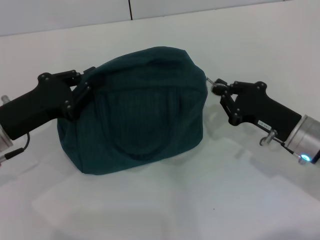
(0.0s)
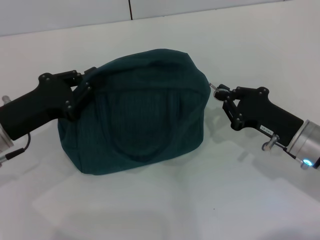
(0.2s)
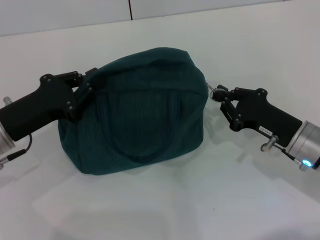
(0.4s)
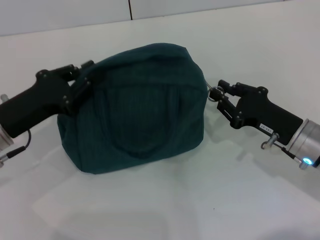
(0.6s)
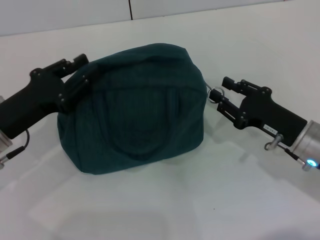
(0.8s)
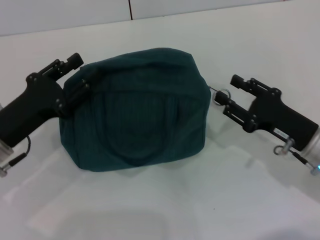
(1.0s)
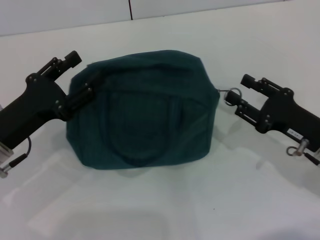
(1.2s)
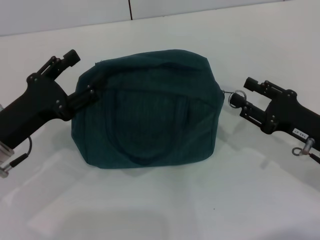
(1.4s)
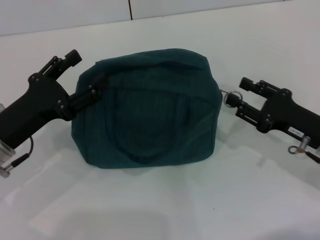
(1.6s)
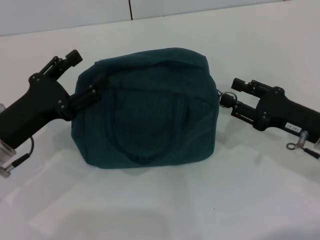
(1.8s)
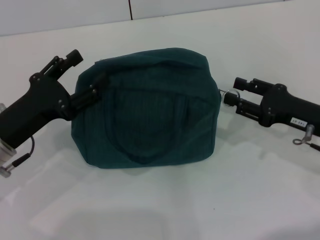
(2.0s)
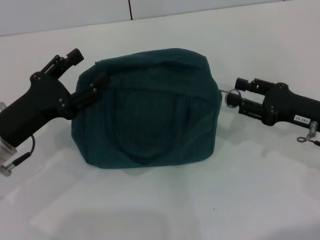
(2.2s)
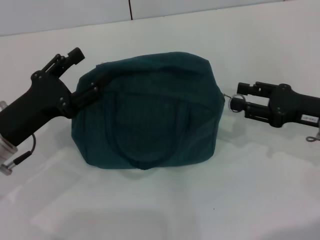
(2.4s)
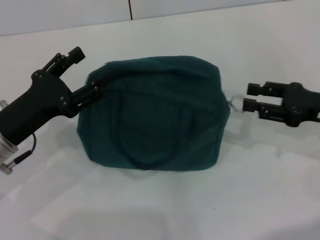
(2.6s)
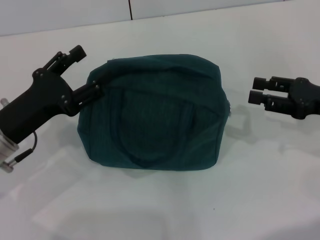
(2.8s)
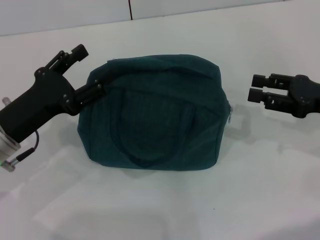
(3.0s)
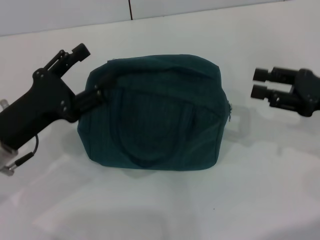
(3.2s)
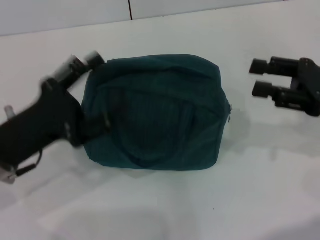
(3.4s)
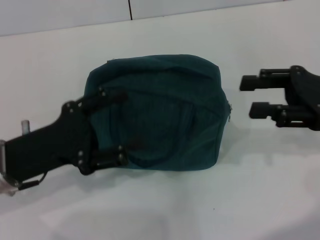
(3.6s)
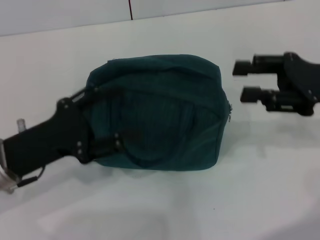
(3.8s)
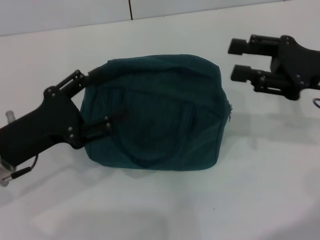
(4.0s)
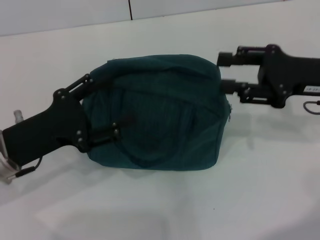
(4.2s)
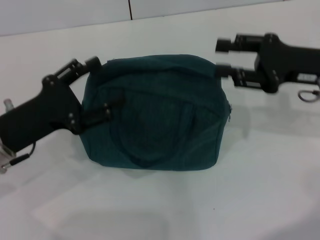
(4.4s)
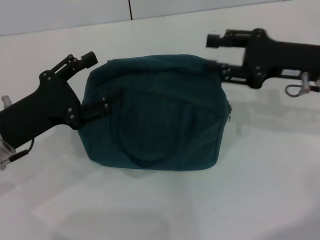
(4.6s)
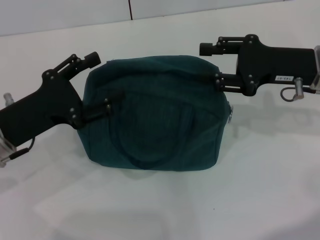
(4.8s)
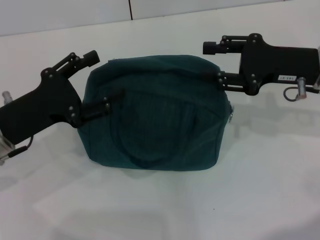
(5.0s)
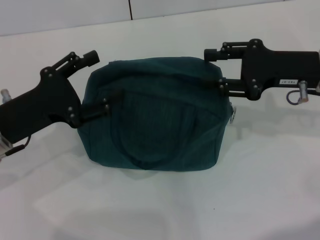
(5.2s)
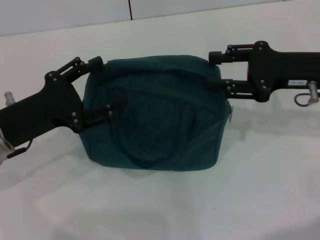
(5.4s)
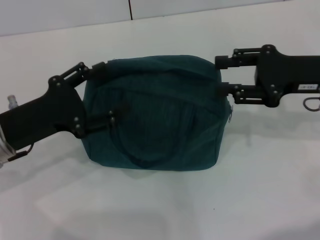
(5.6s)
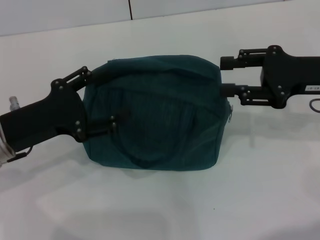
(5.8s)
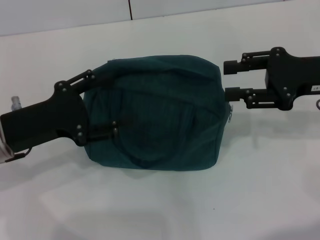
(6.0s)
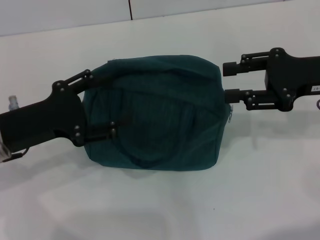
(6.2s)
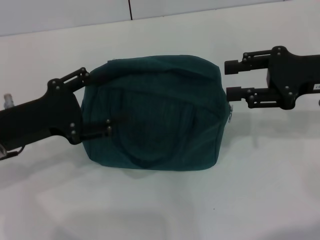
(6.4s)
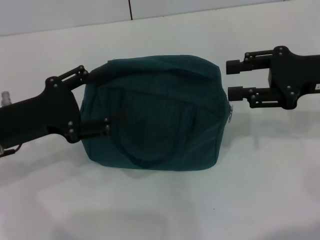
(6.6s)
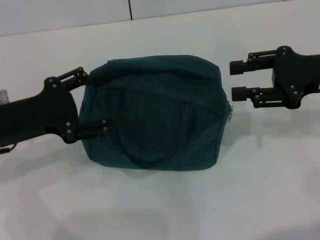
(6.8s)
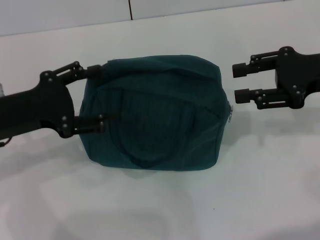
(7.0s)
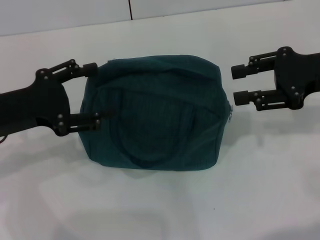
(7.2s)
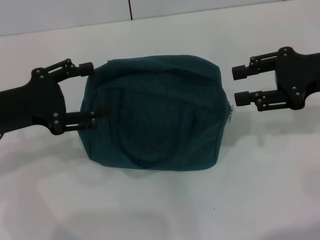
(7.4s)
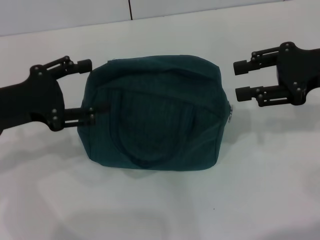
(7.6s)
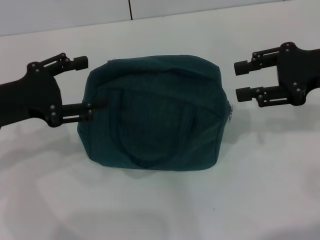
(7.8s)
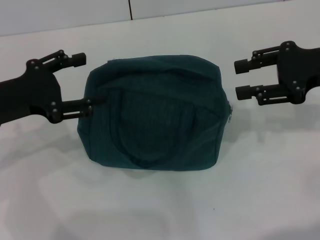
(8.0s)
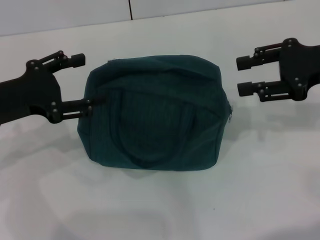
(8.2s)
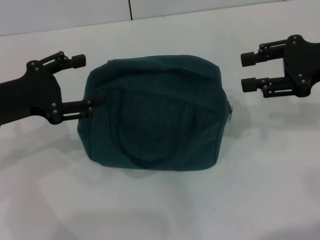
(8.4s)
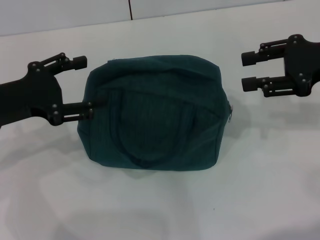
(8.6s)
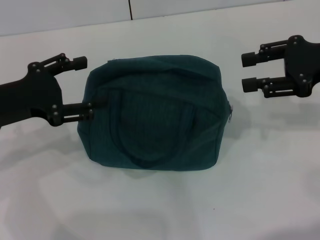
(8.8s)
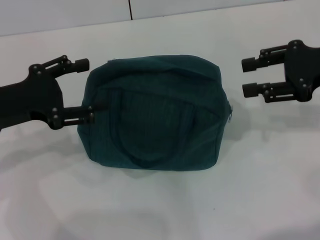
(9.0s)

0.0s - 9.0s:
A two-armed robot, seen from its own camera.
0.0s - 1.6s: The left gripper opens up. The right gripper opens.
1.6s - 3.0s: The right gripper goes some 10 cm upward and to the right.
3.0s - 4.4s: The right gripper changes place by some 10 cm.
4.4s - 7.6s: The grippers stay close to where they were, moving slightly.
7.6s - 9.0s: The two grippers keep their place.

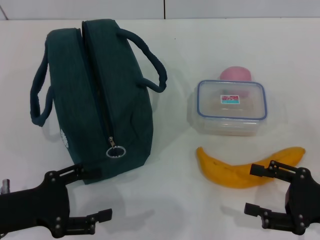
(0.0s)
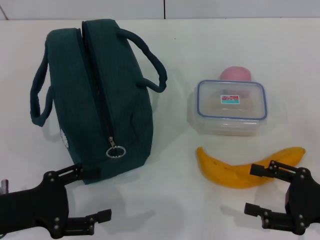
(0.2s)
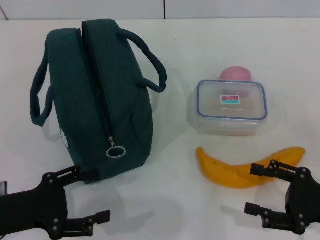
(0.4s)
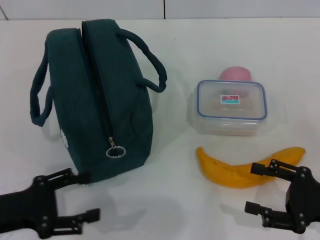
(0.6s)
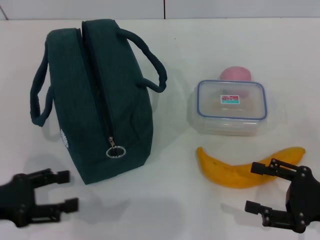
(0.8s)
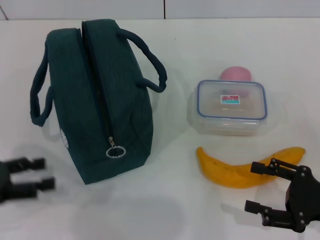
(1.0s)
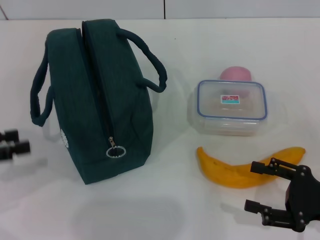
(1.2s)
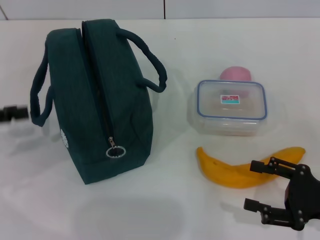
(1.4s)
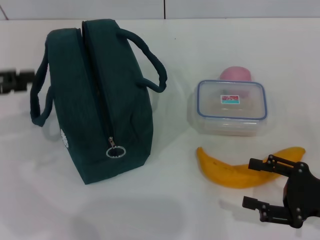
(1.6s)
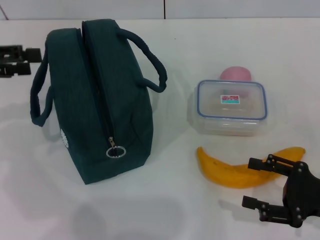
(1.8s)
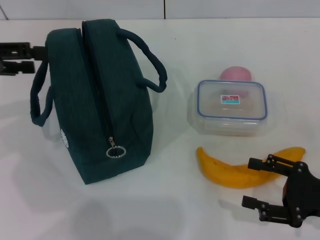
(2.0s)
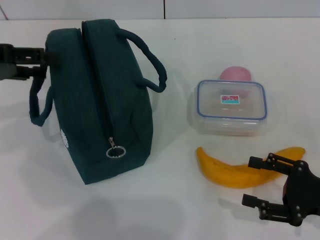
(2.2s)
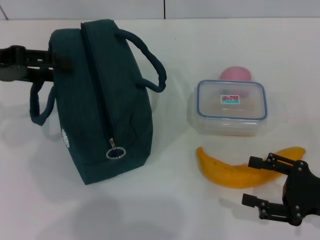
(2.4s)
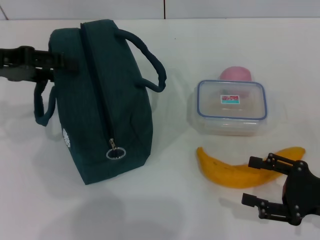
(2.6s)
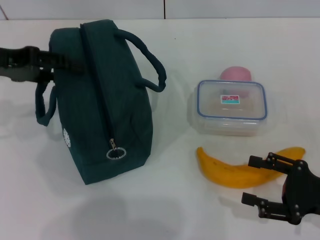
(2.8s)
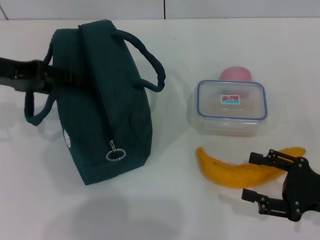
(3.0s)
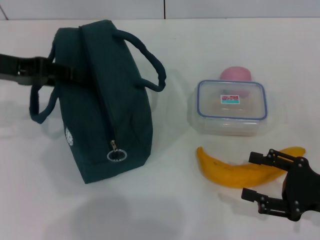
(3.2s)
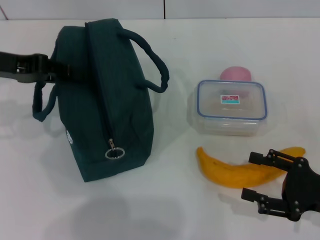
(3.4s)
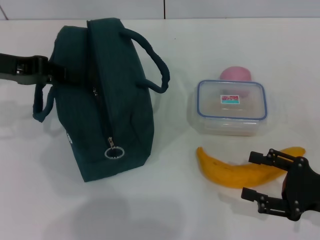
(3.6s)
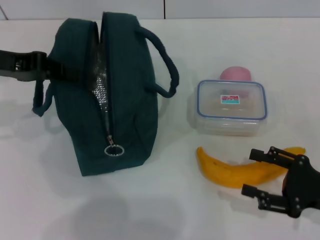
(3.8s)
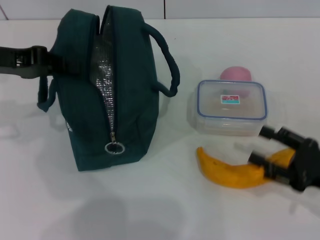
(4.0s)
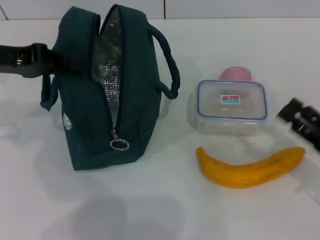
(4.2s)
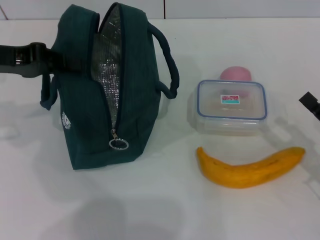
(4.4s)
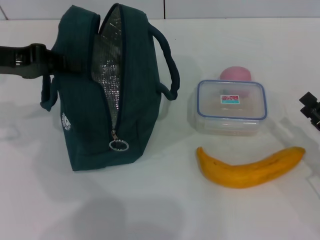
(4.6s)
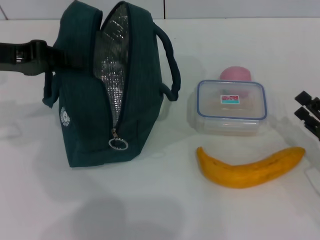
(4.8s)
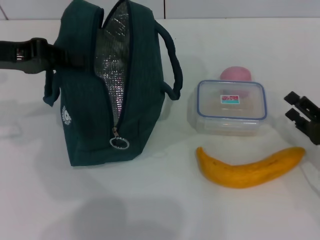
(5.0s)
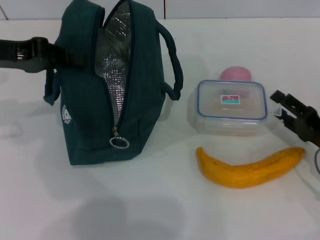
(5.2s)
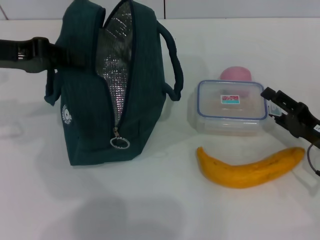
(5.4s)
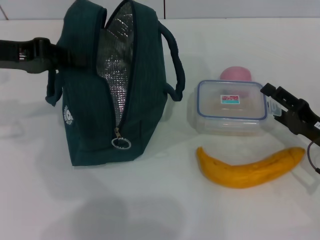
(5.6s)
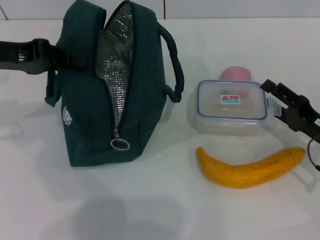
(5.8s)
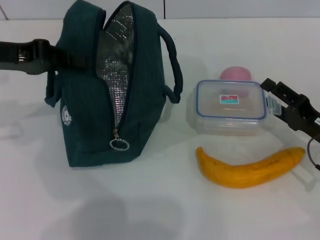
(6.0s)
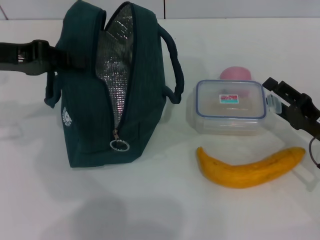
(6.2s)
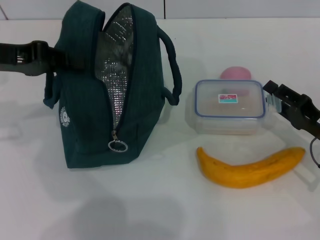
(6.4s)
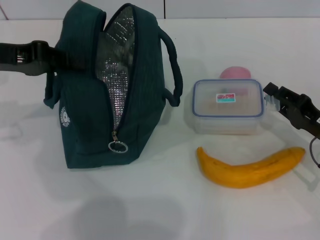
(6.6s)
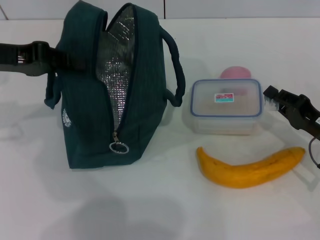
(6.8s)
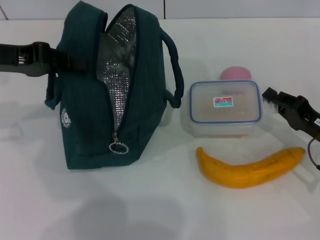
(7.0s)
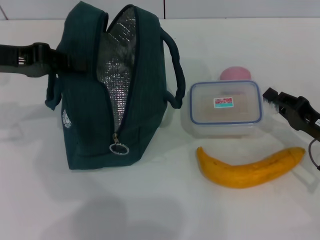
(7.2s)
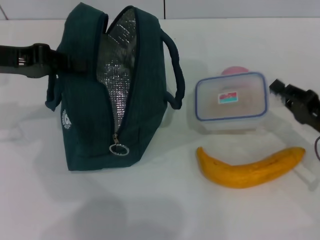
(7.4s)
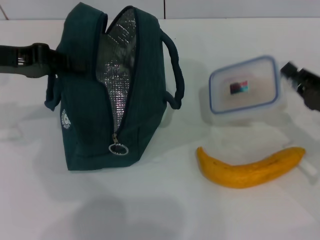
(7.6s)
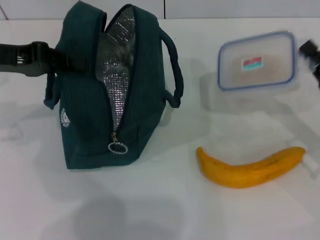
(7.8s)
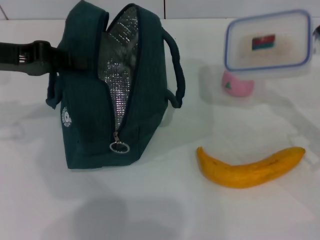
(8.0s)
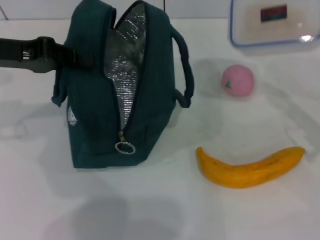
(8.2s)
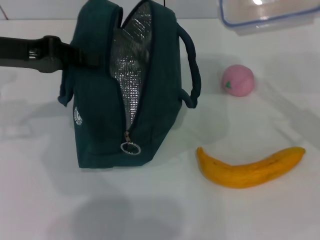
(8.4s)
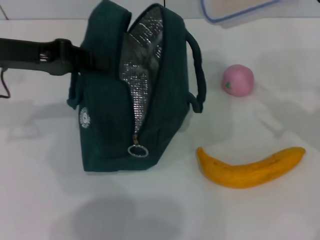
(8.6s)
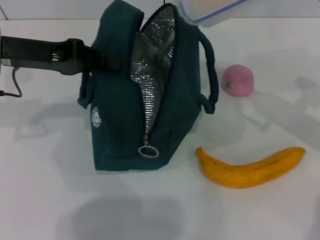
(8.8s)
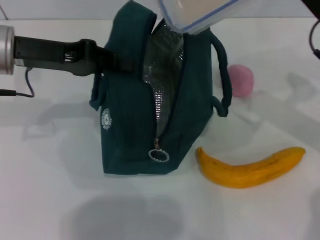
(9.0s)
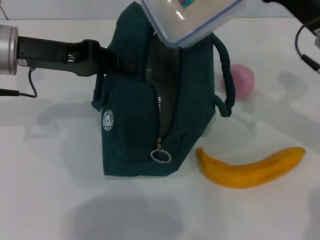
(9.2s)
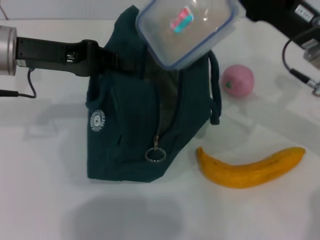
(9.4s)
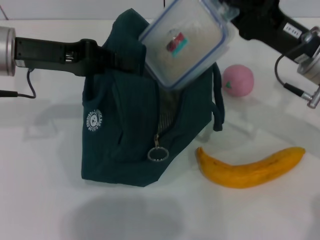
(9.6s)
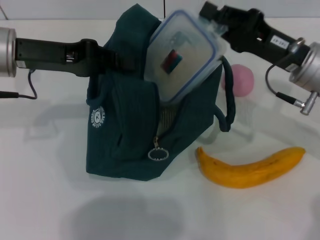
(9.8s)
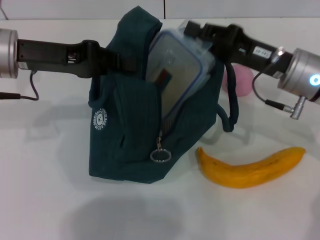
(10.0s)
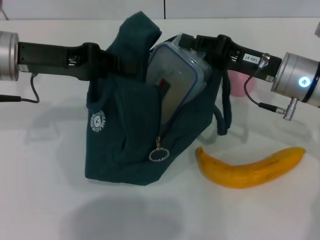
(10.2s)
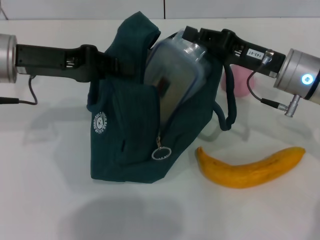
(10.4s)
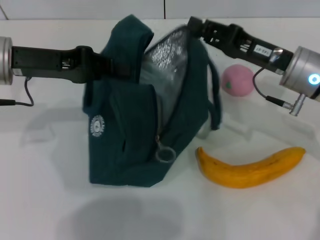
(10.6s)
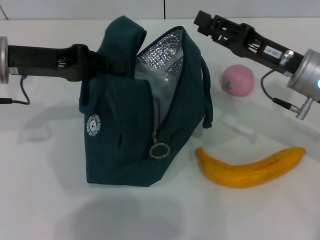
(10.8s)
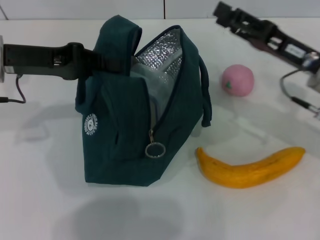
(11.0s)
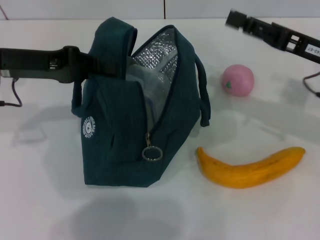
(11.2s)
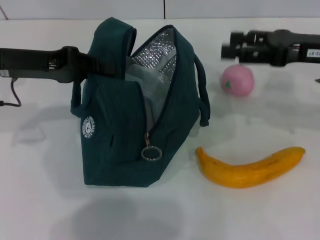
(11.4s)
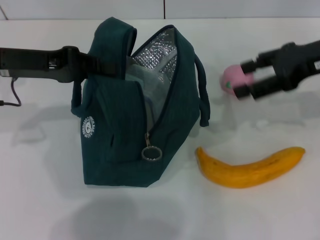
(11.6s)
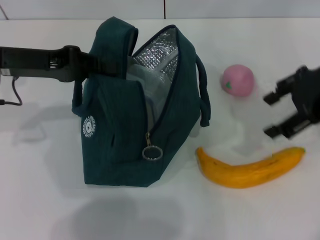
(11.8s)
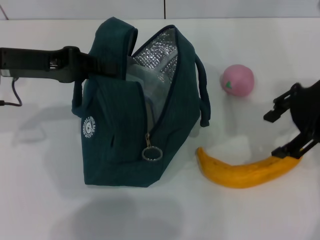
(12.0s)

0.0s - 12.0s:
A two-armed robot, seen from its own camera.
Step, 0.0s - 3.4s: Hold the lunch bag with your left hand.
Step, 3.6s - 6.8s: Pick up the lunch box with your right hand.
Step, 7.0s - 10.6s: Place the lunch box into the lunch bag with your right hand.
0.0s - 1.6s: The left gripper moves upward, forward and to the left, some 20 cm.
1.6s - 3.0s: The left gripper heads to the right and forward, covering about 10 cm.
3.0s - 4.4s: The left gripper closes up.
4.4s - 6.0s: The right gripper travels forward by some 5 cm.
6.0s - 7.6s: The right gripper closes.
7.6s - 9.0s: The right gripper shifts some 15 cm upward, forward and to the left; the left gripper moves to the right, some 5 cm.
9.0s - 10.4s: The right gripper moves approximately 5 cm.
10.4s - 12.0s: The right gripper moves upward, roughly 10 cm, and opens its fingers.

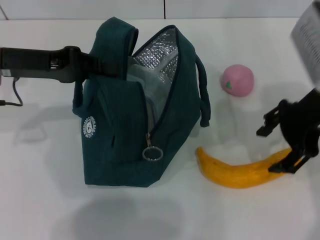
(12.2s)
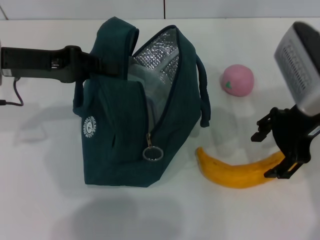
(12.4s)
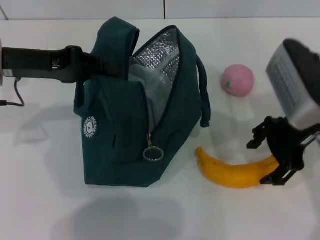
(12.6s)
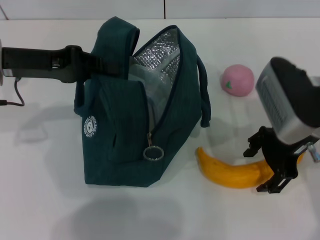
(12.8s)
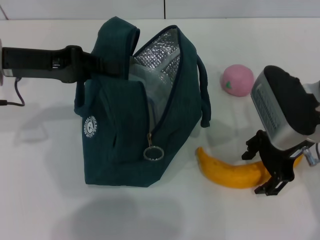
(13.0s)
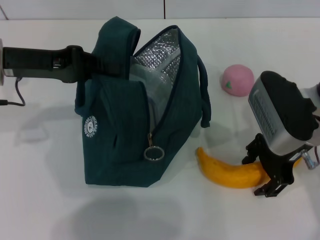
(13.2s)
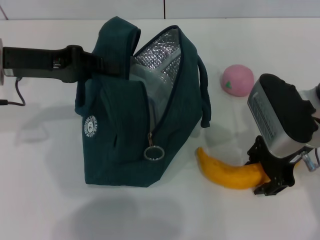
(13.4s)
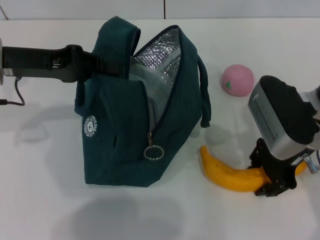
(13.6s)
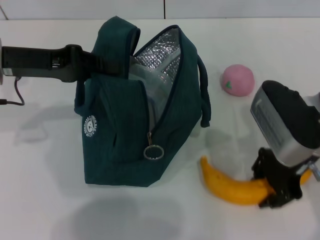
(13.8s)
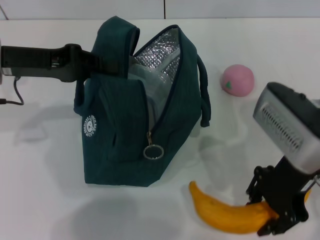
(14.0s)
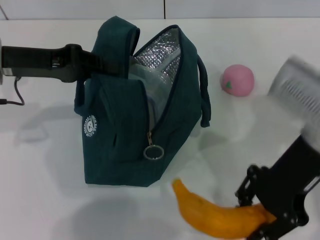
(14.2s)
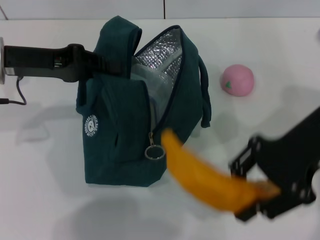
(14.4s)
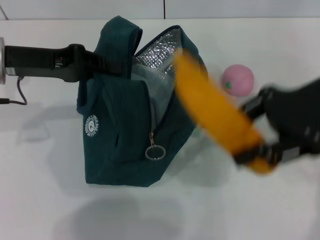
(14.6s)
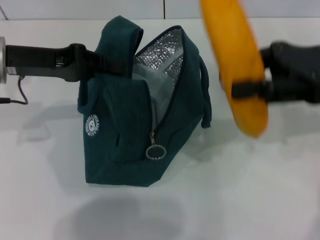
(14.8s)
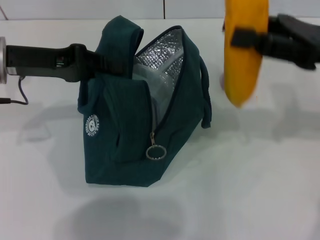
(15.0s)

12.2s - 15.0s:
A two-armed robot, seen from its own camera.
Step, 12.2s - 13.6s: Take the banana with your right hand.
12.2s - 13.6s: The right gripper heads downward, covering about 5 cm.
13.6s - 15.0s: The right gripper goes roughly 10 cm to the right and upward.
